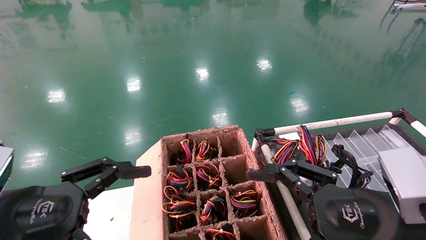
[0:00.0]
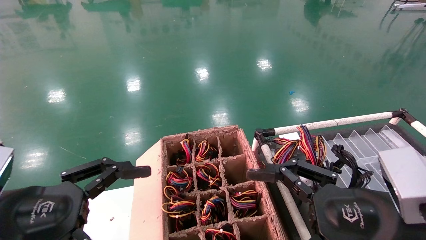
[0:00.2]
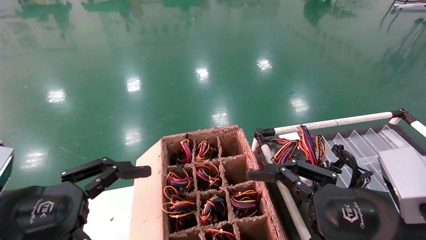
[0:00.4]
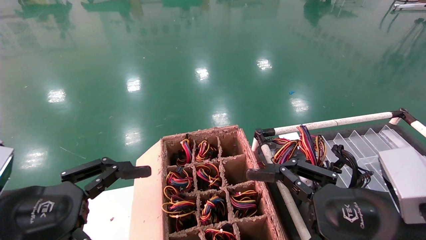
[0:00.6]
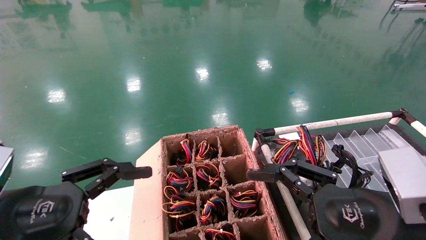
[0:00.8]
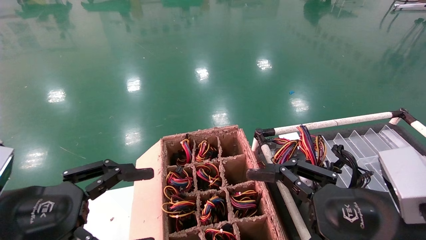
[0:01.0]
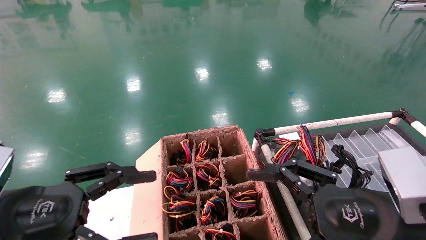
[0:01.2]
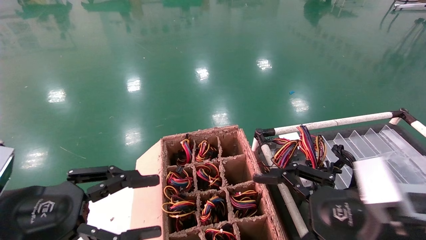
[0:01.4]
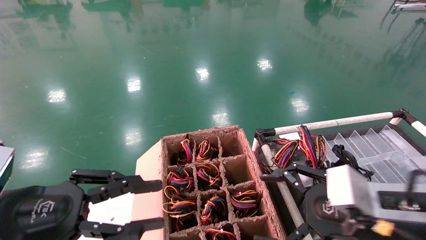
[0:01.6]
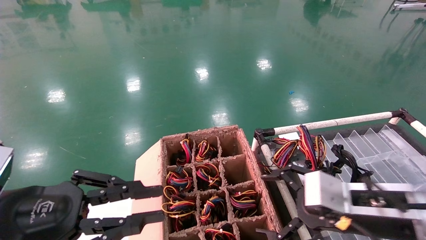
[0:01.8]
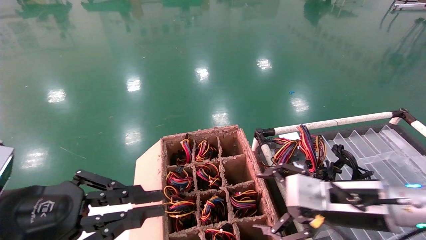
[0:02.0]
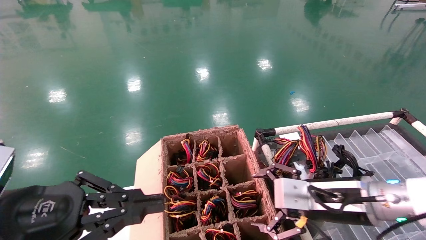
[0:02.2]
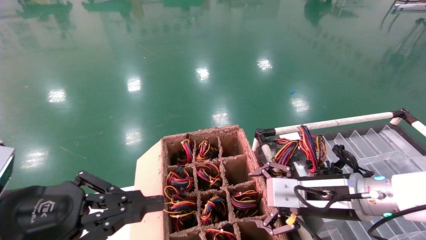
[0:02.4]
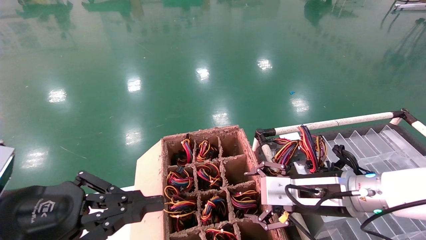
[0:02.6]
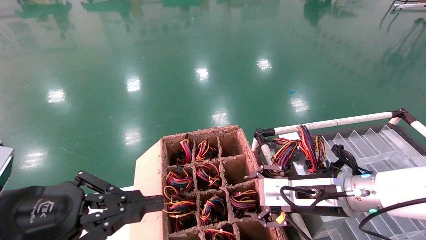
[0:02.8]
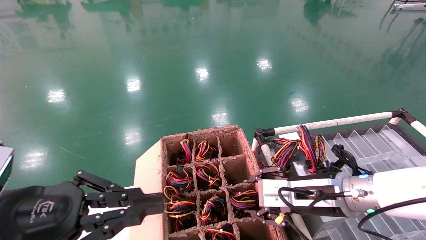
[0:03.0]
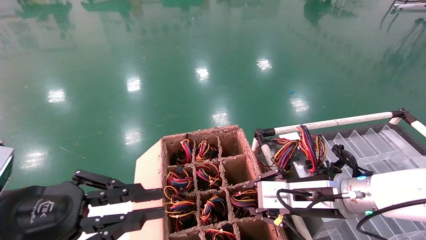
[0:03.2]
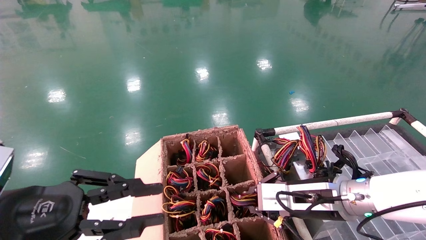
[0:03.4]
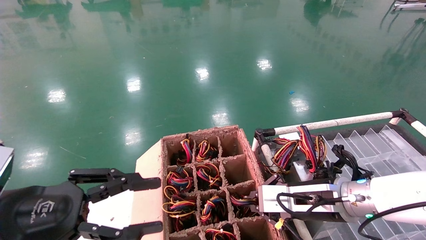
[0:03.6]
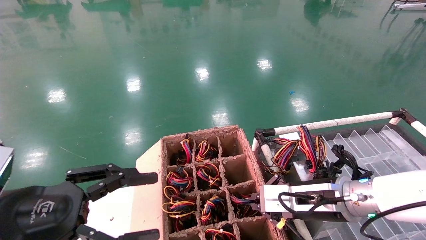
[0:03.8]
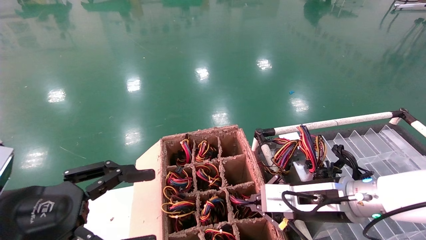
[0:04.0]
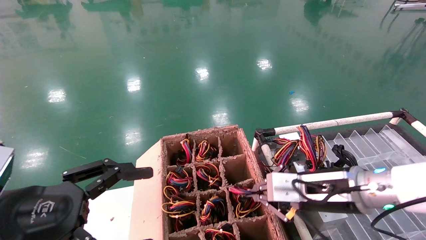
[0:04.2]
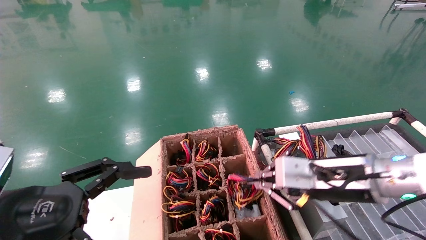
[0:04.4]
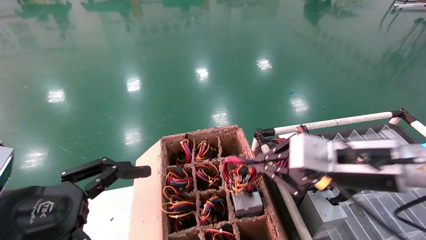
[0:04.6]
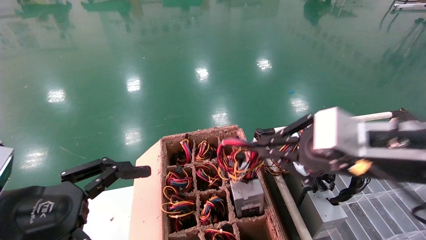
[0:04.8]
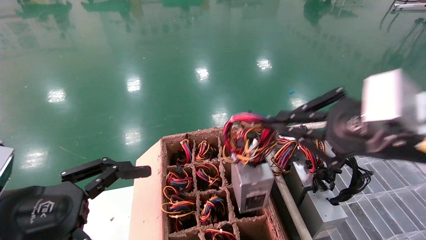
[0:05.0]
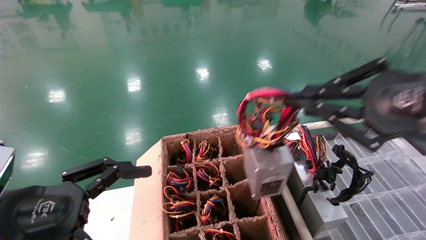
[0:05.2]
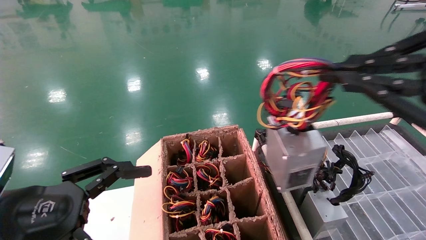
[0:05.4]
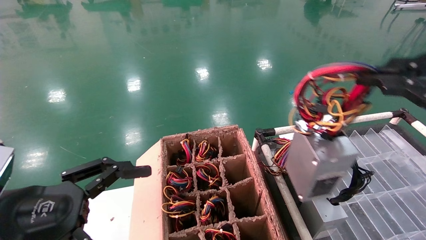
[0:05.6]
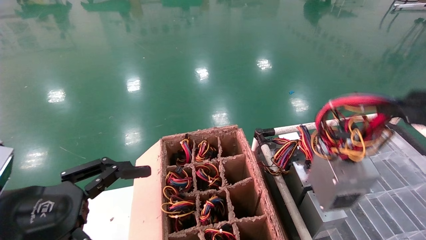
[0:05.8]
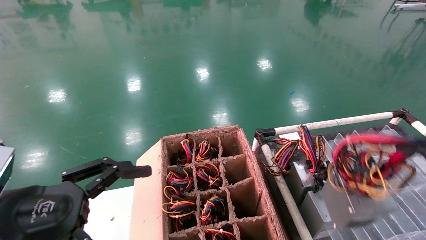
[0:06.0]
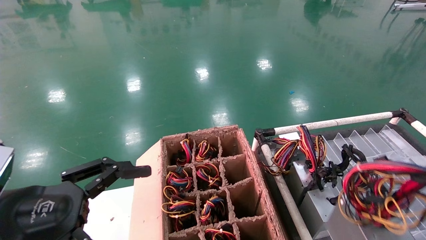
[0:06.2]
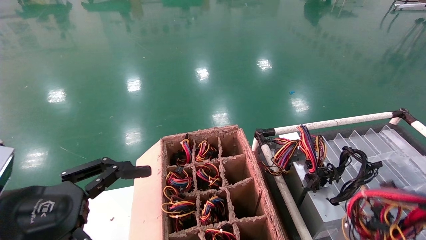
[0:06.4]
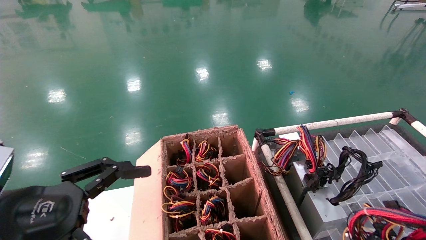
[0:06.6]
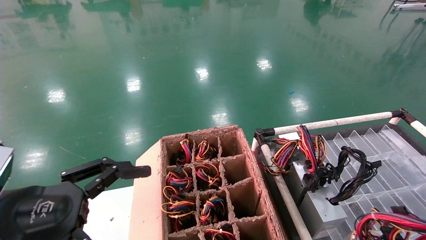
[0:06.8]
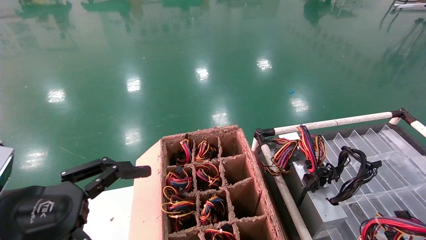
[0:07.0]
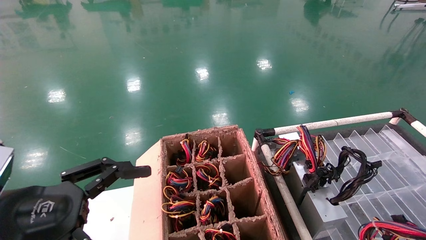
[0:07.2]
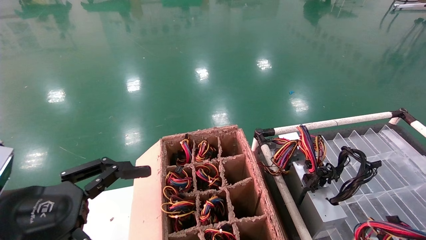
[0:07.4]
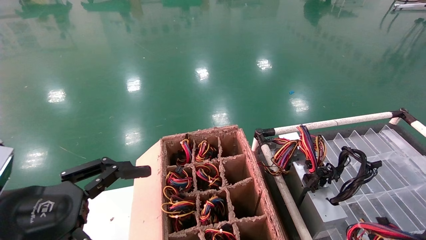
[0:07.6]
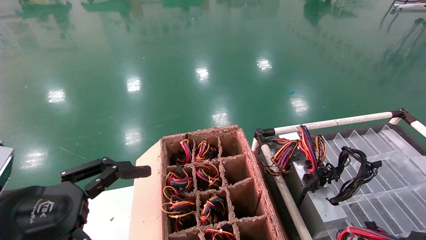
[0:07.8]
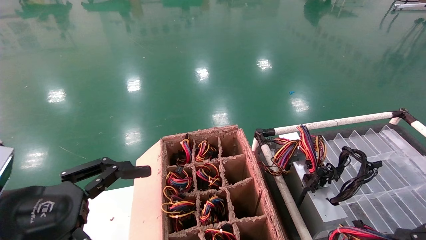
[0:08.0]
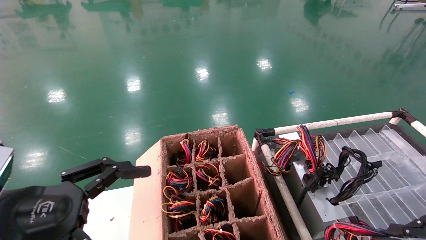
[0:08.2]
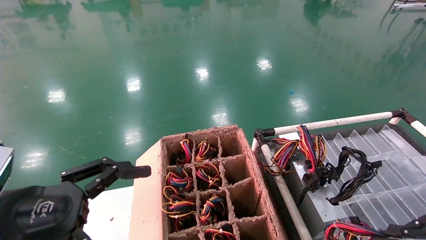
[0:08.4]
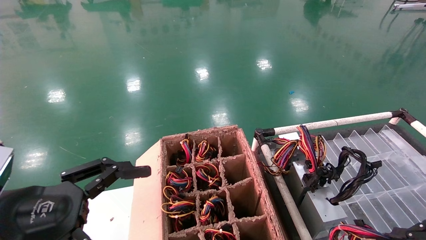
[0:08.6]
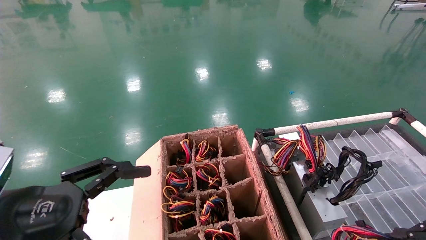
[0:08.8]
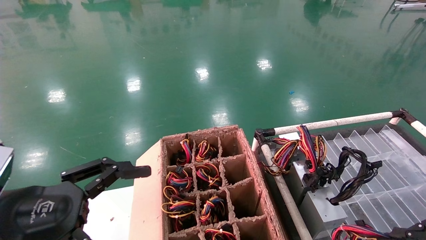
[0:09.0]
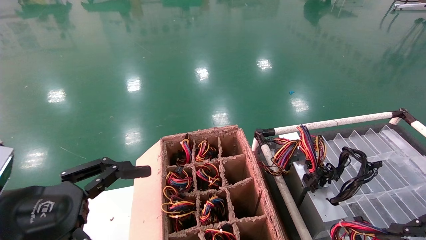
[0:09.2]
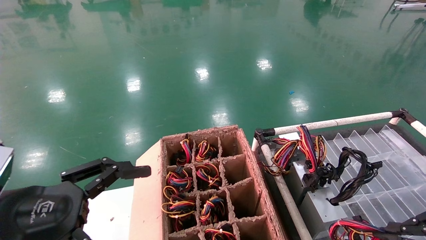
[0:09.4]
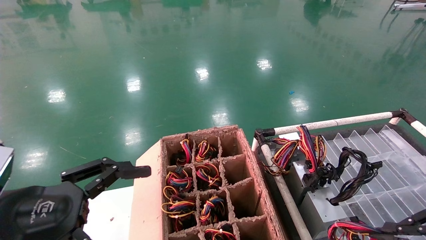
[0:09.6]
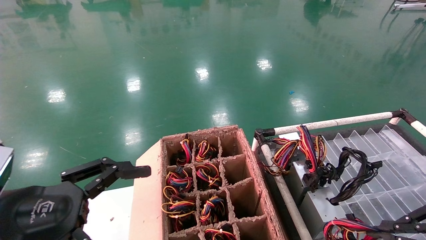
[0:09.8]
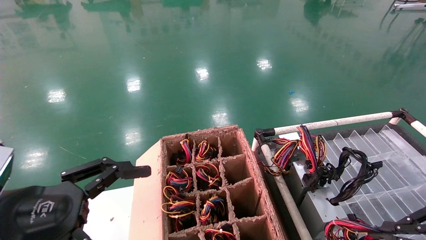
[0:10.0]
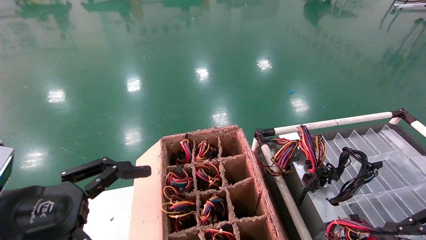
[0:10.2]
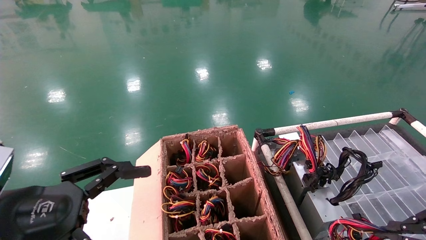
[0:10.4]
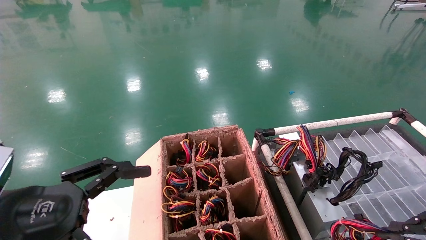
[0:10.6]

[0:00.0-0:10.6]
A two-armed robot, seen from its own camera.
Step, 0:01.6 to 0:04.0: Grab and lift the power supply from the large box.
0:00.0 to 0:01.6: The left gripper closes.
0:01.6 to 0:03.0: The right gripper heads forward, covering roughly 10 cm. The left gripper closes.
0:03.0 to 0:04.6: The left gripper opens. The right gripper goes about 10 cm upward and backward, and closes.
0:04.6 to 0:06.0: The right gripper travels backward and to the right by approximately 25 cm.
0:06.0 to 0:07.6: The right gripper heads downward, covering roughly 10 cm.
0:07.6 to 0:09.0: The right gripper is displaced forward by about 5 cm.
0:09.0 to 0:10.6: The two grippers keep their place.

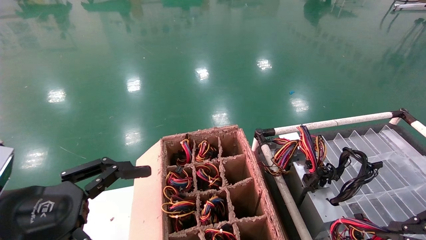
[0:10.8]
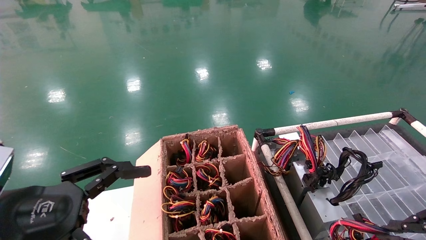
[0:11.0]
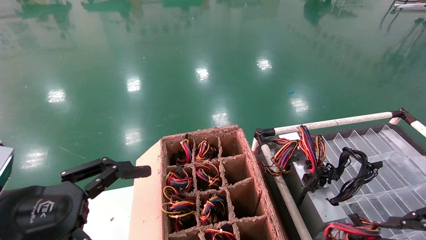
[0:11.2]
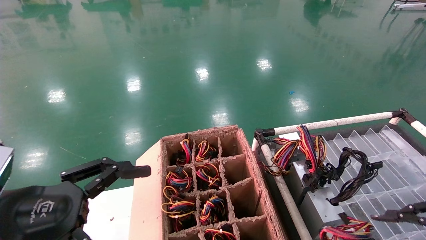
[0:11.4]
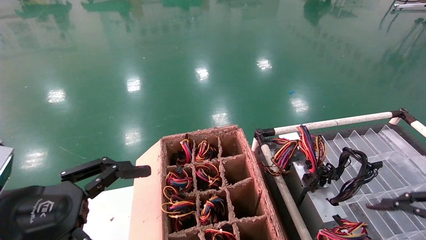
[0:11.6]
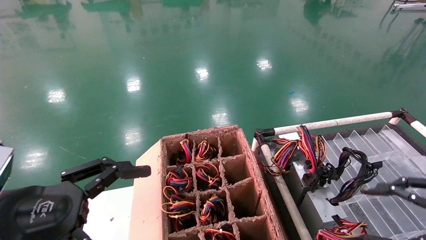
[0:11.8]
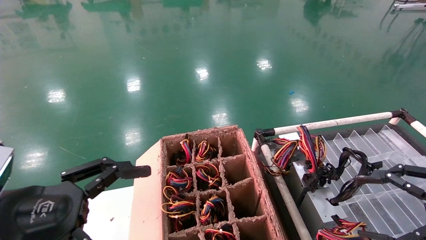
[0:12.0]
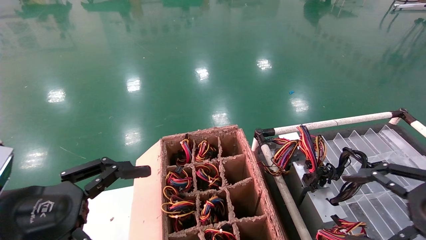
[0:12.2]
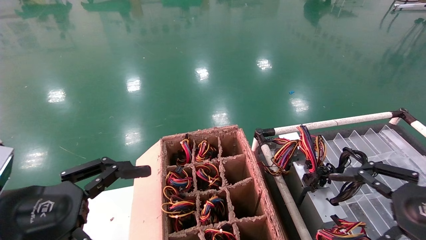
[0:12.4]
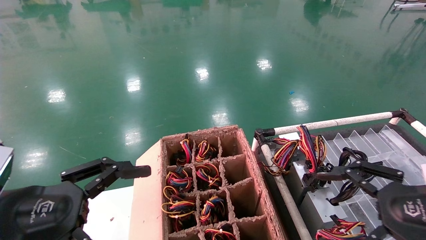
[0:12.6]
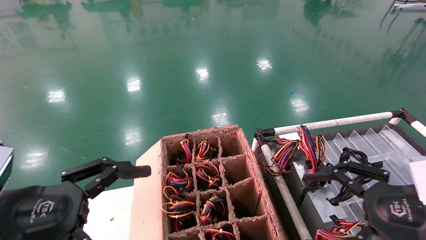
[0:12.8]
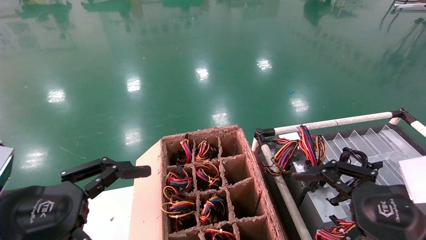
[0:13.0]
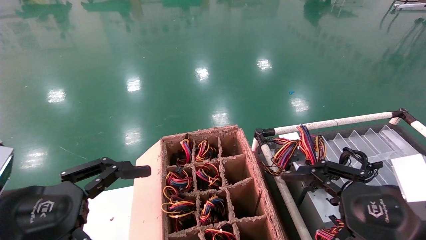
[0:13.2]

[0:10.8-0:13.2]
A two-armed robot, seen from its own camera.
0:10.8 to 0:12.0: The right gripper opens.
0:12.0 to 0:13.2: The right gripper travels to the left by roughly 10 cm.
